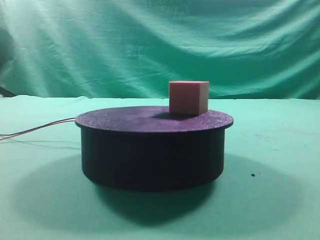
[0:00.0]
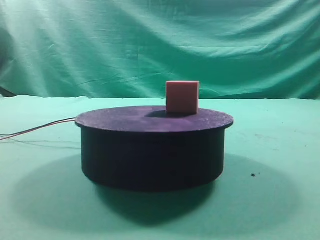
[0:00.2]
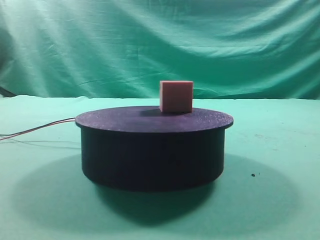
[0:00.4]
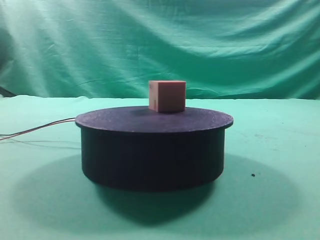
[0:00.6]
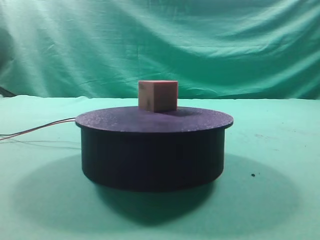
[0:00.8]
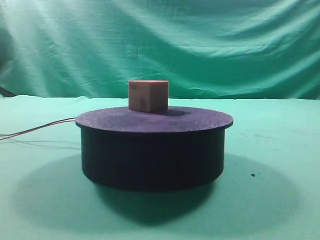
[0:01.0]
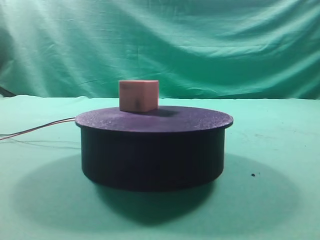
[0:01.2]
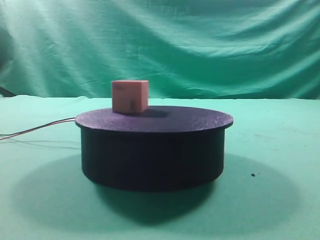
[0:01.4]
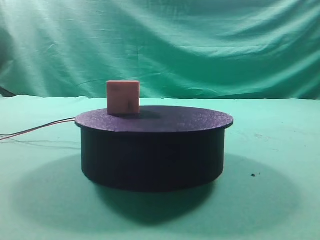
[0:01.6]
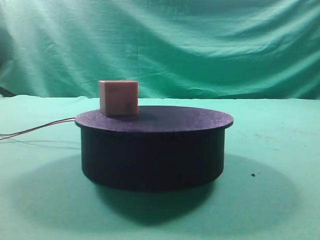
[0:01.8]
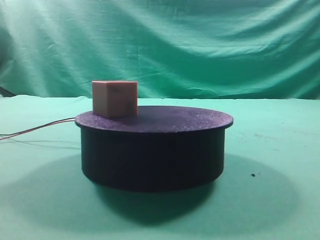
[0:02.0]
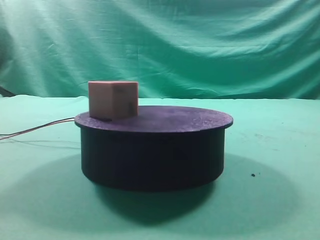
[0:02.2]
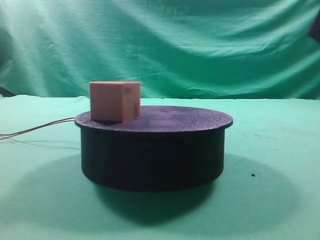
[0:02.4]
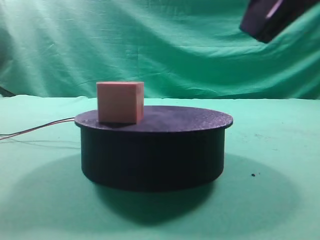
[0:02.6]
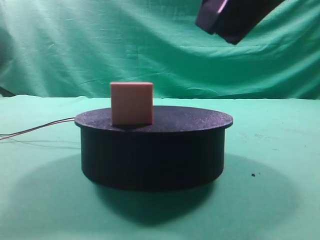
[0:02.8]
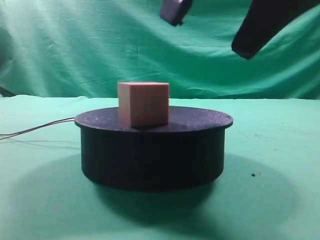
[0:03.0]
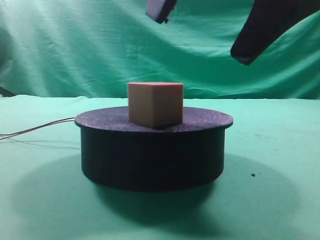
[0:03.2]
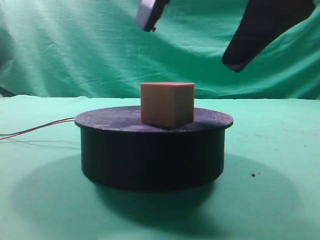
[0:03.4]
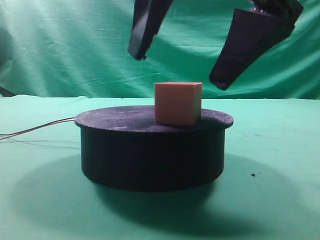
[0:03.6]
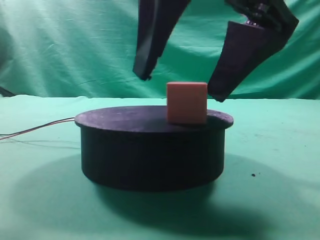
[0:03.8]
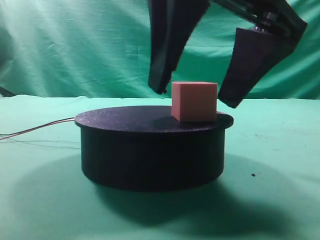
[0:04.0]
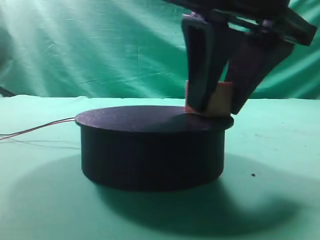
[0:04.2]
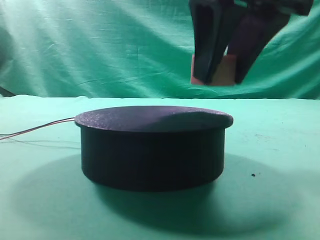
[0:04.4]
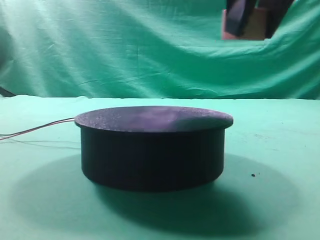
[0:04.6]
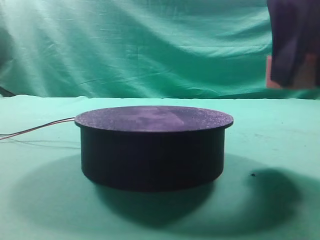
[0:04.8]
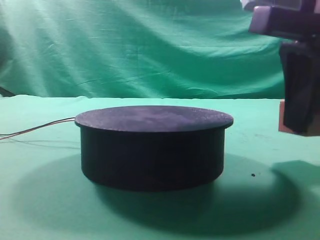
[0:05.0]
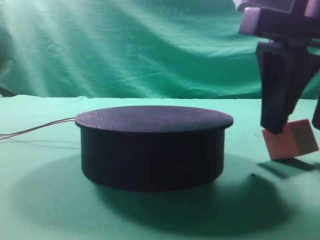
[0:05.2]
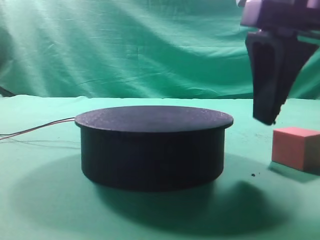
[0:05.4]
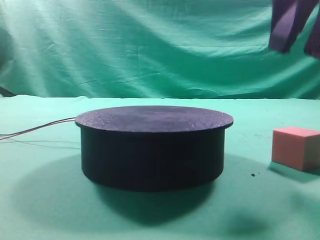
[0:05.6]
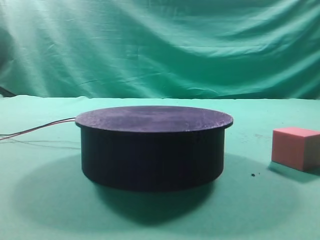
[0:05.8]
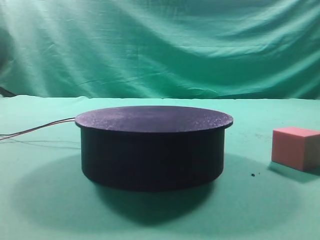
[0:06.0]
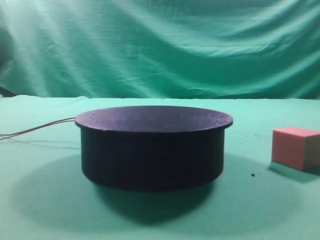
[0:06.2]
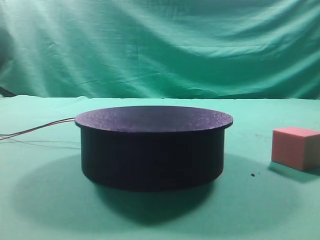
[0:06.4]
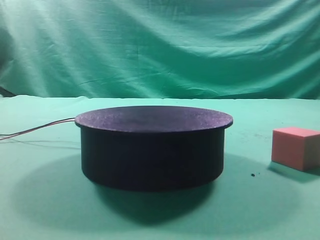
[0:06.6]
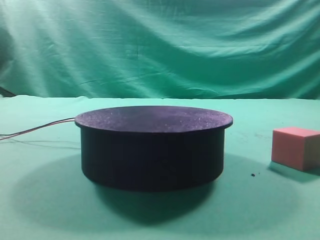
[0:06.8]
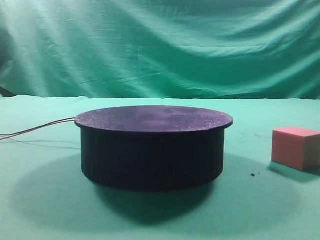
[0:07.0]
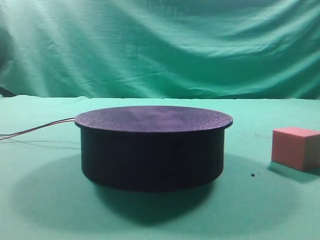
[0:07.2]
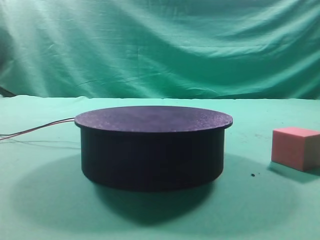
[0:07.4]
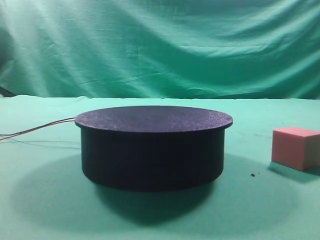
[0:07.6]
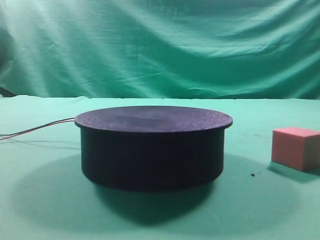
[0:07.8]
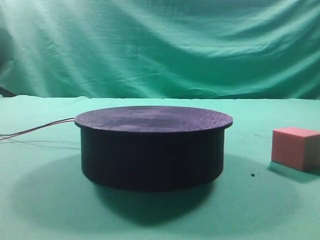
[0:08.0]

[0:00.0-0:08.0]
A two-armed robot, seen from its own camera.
Task of the whole recording: grasp the rotating cube-shaped block on the turntable and place it on the table.
Step, 0:00.0 to 0:04.2: Grasp the rotating cube-shaped block on the turntable.
Step, 0:04.4 to 0:05.4: Place the cube on the desk.

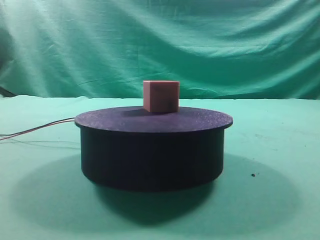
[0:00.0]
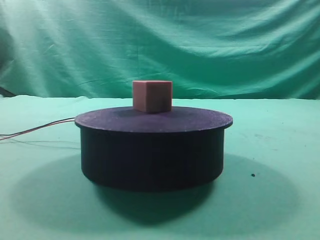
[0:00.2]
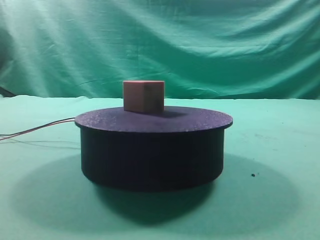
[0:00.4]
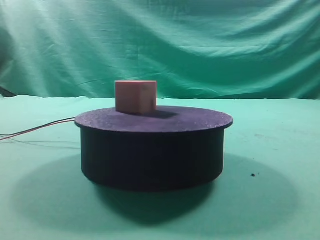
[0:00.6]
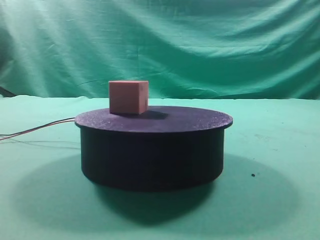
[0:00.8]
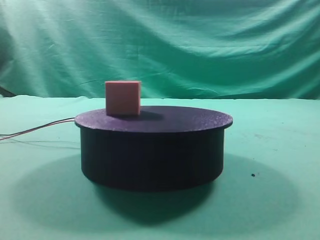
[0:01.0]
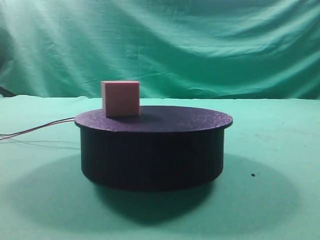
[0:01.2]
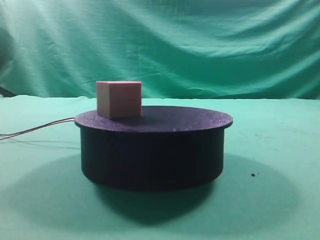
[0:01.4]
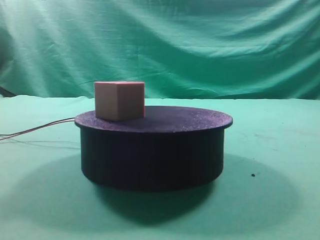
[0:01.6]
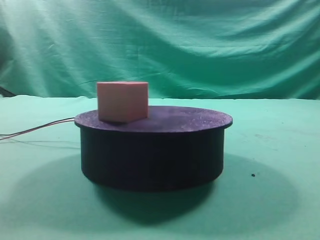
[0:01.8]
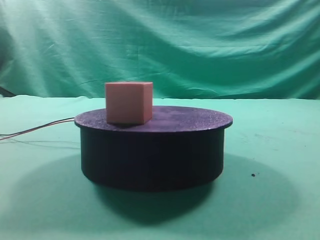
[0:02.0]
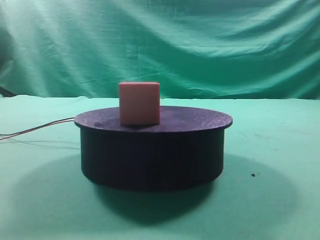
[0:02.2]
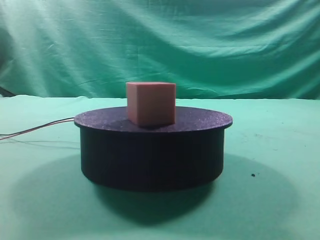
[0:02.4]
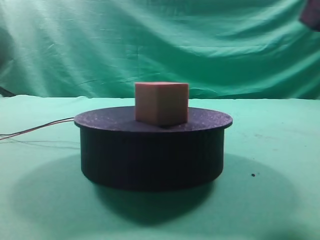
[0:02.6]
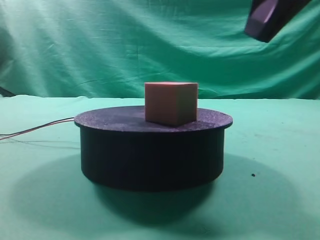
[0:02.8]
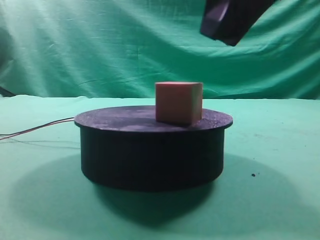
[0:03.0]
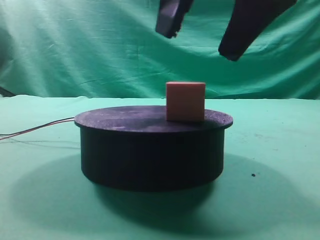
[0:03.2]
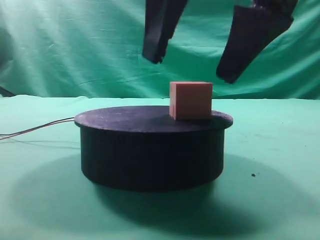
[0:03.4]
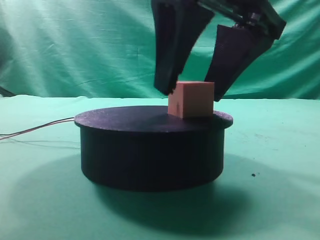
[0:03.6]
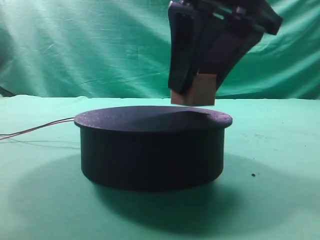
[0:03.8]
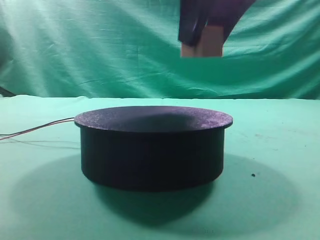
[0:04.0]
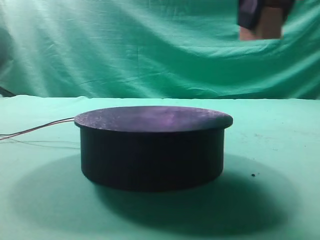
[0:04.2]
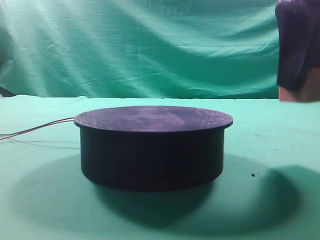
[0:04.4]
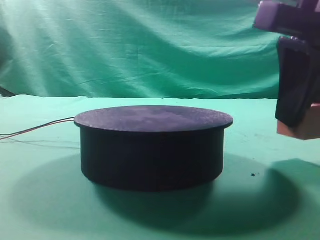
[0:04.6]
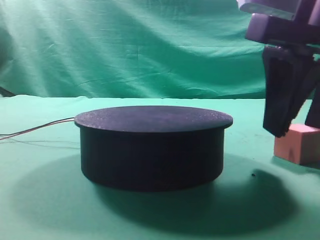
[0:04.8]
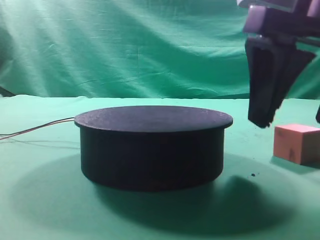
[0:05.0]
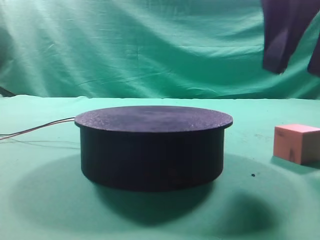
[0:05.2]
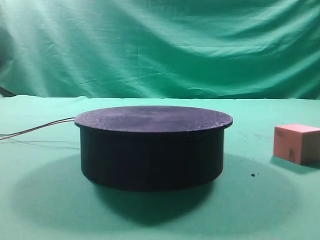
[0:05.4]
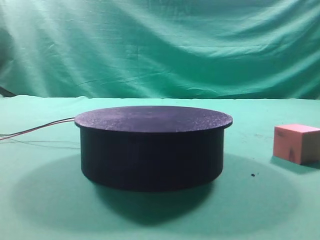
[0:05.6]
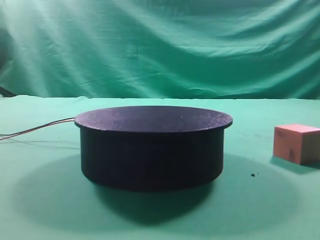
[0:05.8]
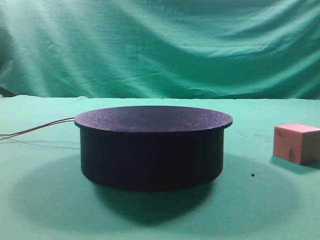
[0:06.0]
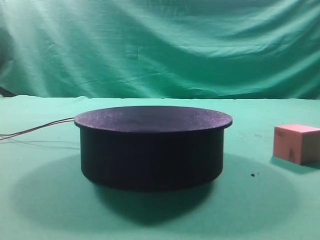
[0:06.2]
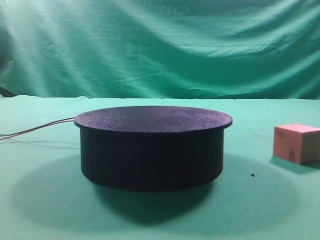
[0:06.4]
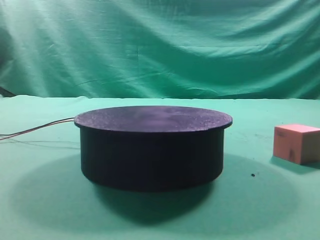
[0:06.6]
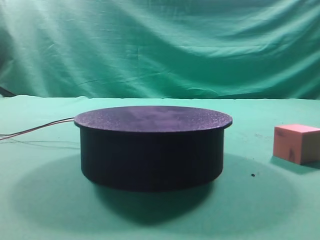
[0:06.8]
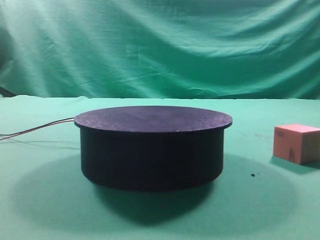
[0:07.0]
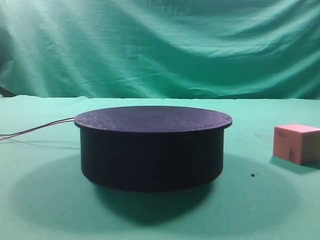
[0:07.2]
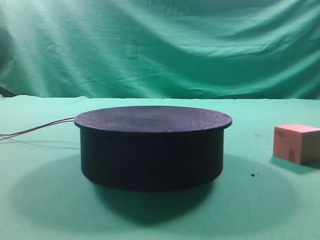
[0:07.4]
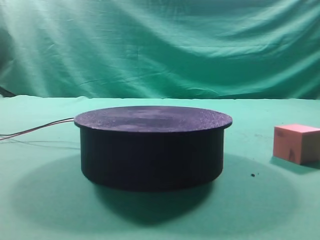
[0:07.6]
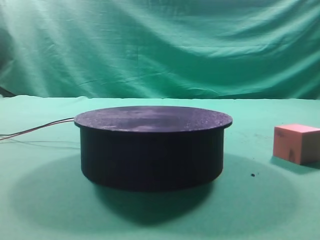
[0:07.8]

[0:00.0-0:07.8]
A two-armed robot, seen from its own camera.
Task of the whole recording: grasp the rotating cube-shaped block on the turntable and place it on the table.
Step, 0:00.0 to 0:03.8: Grasp the rotating cube-shaped block on the turntable.
Step, 0:04.0 to 0:05.0: Place the cube on the desk.

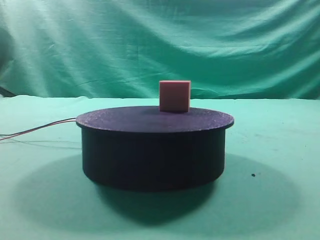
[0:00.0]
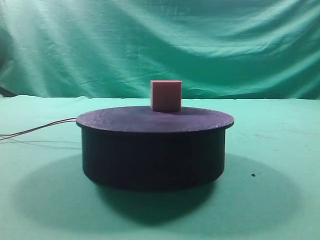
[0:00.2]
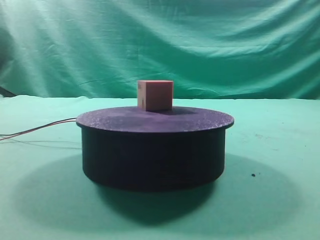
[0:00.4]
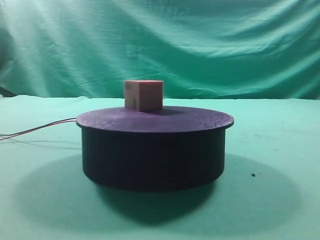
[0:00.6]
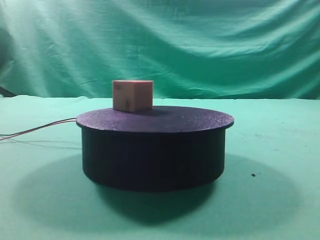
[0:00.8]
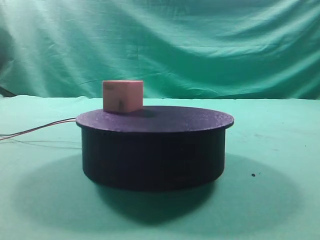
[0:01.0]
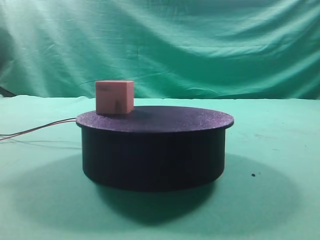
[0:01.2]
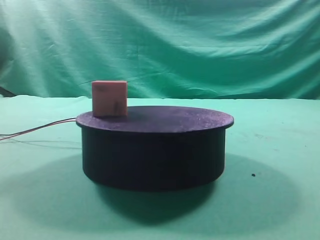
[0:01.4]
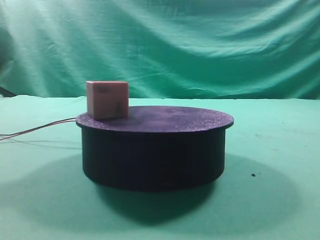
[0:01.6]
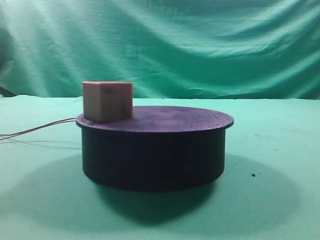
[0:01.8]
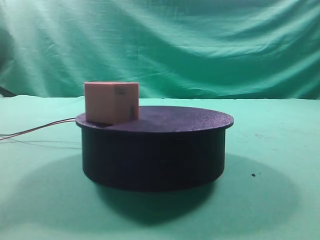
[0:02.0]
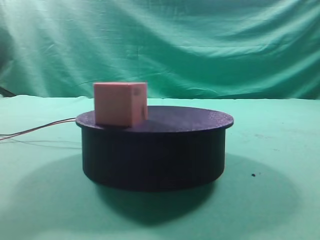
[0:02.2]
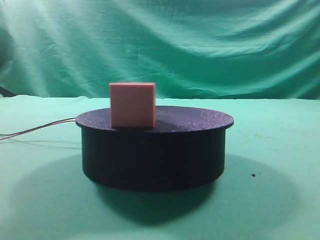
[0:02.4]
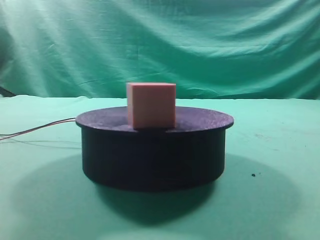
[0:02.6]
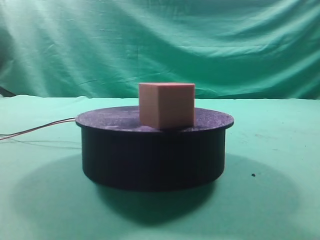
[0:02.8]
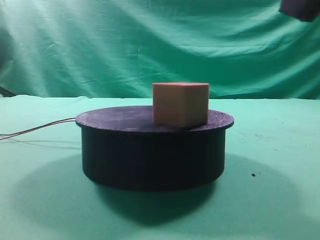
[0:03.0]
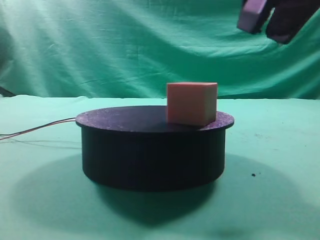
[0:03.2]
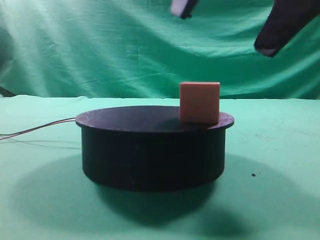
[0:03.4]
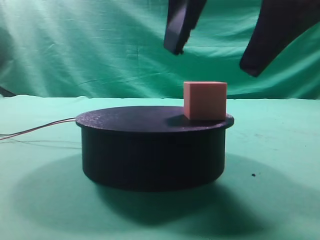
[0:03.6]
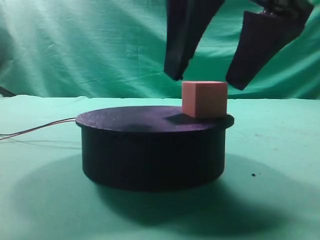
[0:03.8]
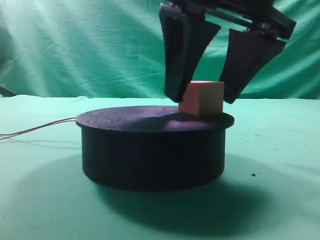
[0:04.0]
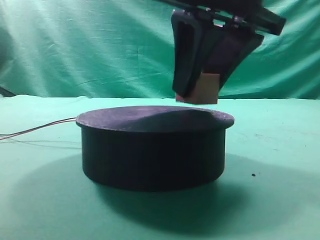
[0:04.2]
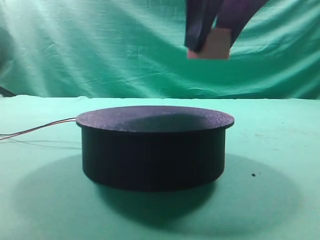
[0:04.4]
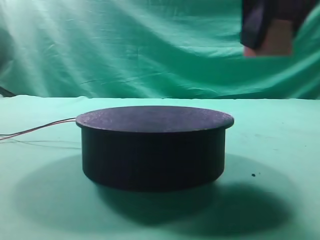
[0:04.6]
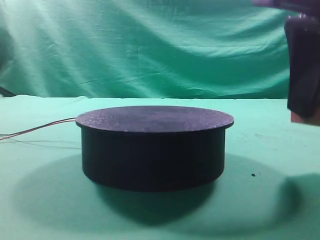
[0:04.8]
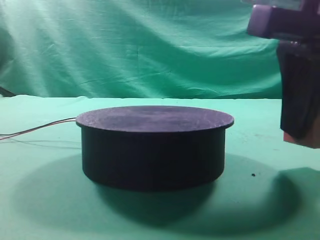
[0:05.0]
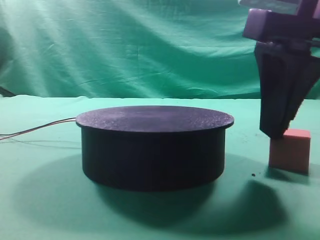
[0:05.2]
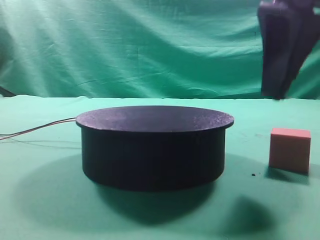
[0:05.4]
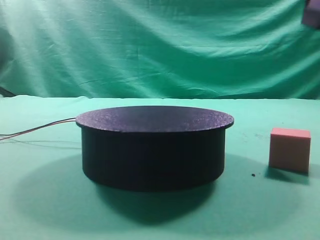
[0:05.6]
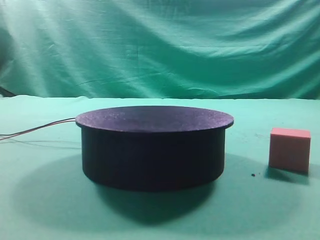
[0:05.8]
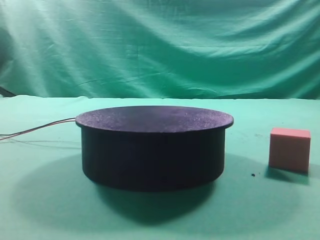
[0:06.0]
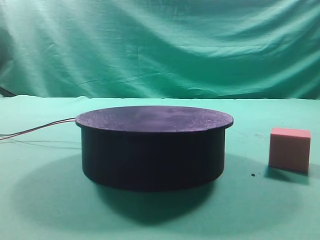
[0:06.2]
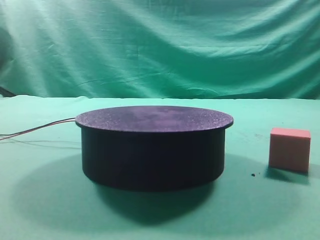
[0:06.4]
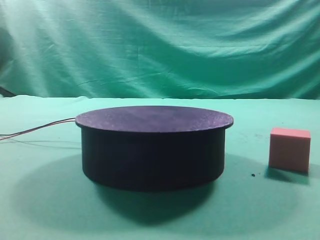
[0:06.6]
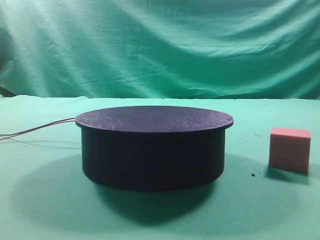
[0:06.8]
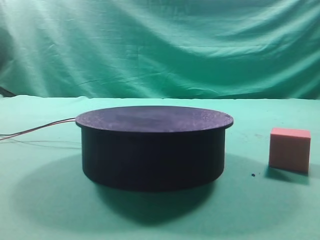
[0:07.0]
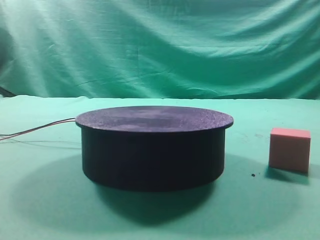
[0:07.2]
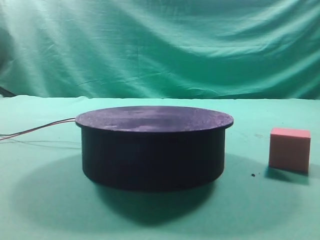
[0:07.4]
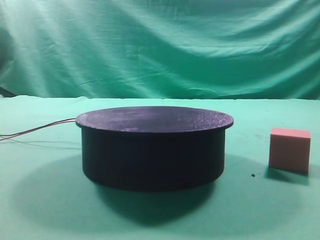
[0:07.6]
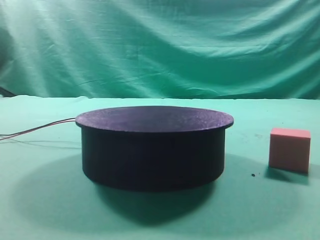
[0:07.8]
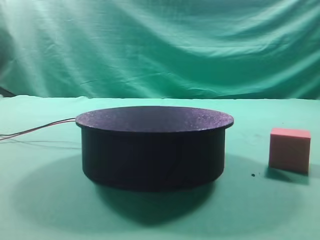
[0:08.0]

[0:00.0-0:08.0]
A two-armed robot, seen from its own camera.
Task of the whole recording: grasp the rotating cube-shaped block on the turntable and place it on the table.
Step, 0:00.0 to 0:04.2: Grasp the rotating cube-shaped block on the turntable.
Step, 0:04.4 to 0:05.2: Place the cube on the desk.
